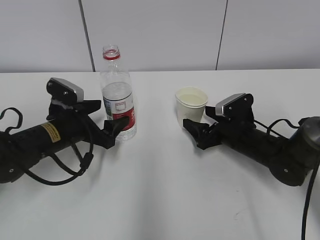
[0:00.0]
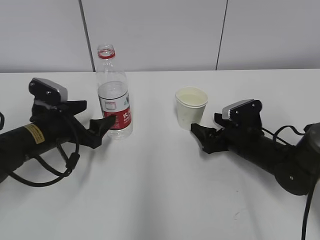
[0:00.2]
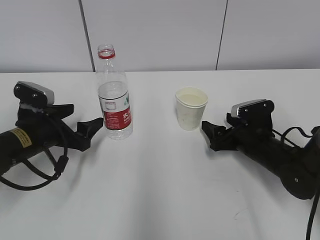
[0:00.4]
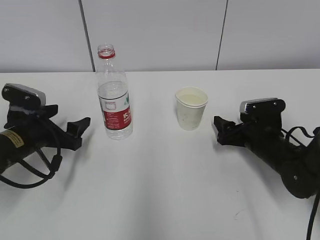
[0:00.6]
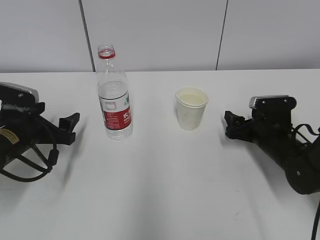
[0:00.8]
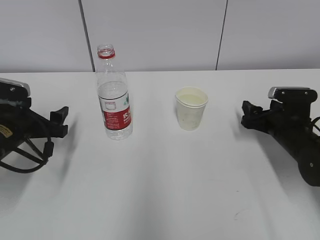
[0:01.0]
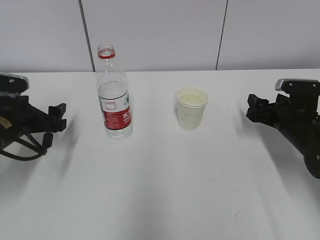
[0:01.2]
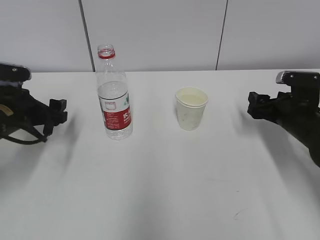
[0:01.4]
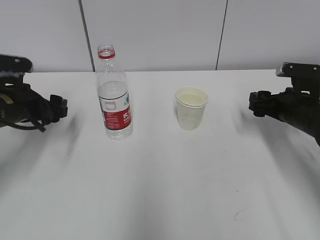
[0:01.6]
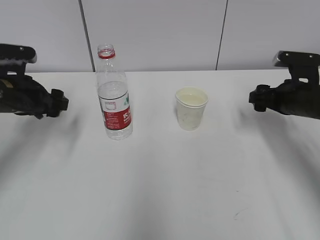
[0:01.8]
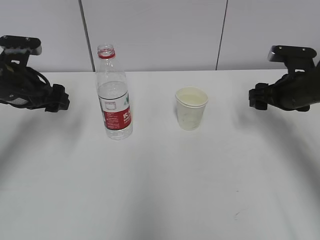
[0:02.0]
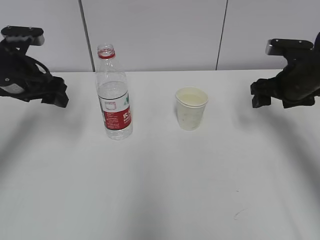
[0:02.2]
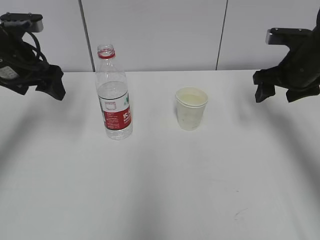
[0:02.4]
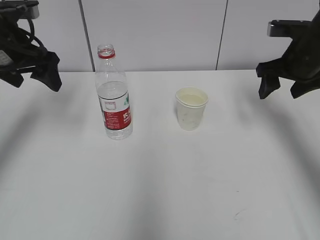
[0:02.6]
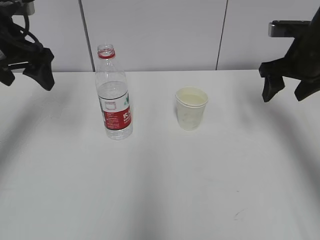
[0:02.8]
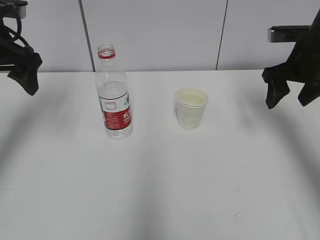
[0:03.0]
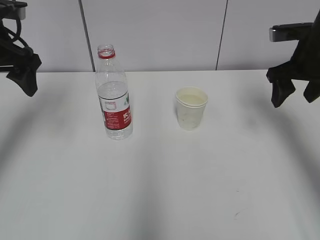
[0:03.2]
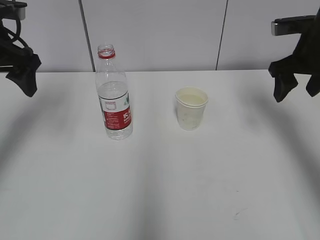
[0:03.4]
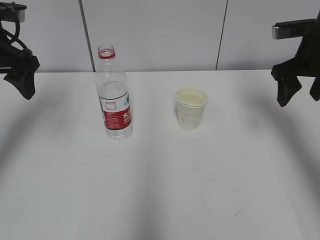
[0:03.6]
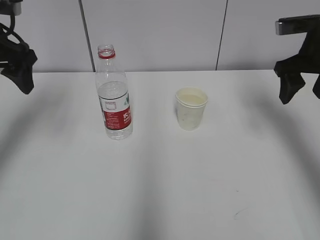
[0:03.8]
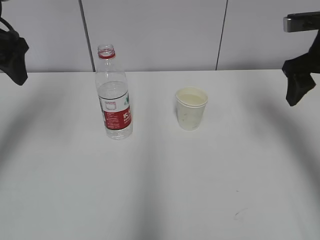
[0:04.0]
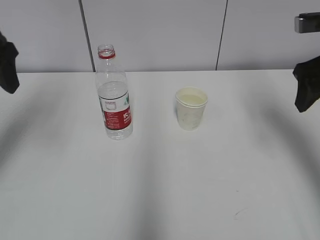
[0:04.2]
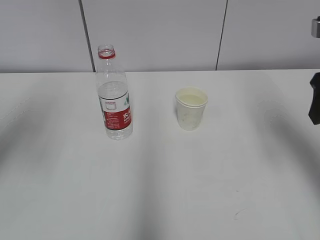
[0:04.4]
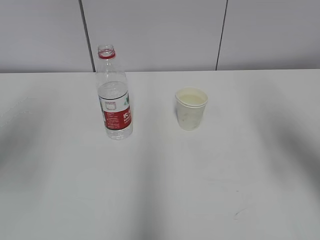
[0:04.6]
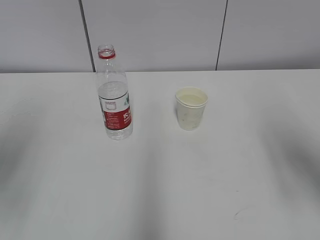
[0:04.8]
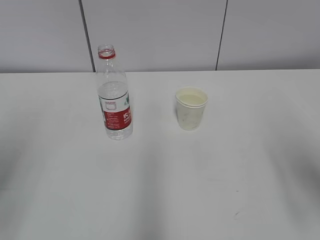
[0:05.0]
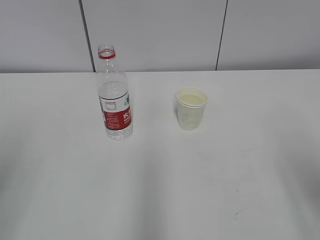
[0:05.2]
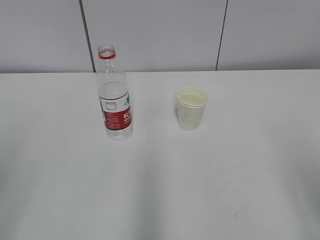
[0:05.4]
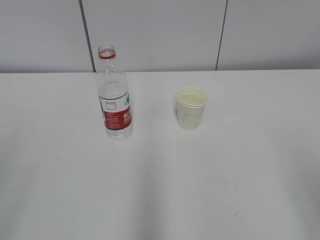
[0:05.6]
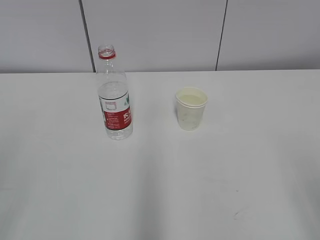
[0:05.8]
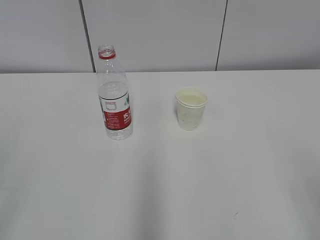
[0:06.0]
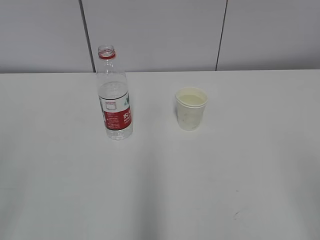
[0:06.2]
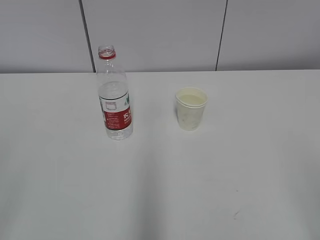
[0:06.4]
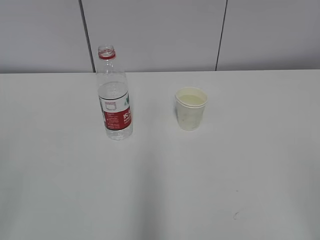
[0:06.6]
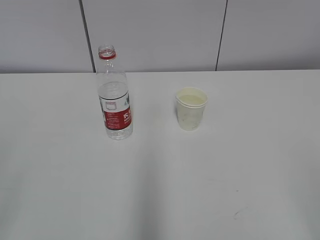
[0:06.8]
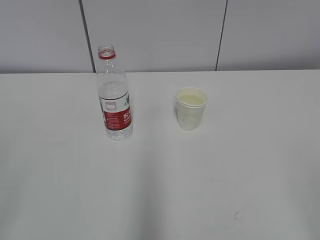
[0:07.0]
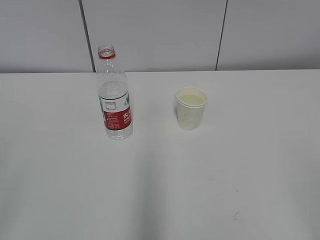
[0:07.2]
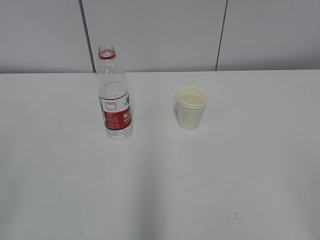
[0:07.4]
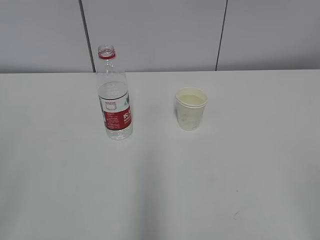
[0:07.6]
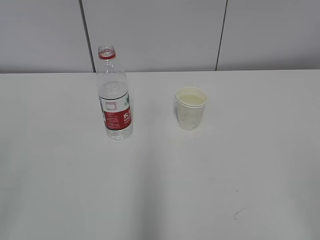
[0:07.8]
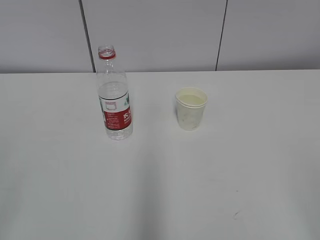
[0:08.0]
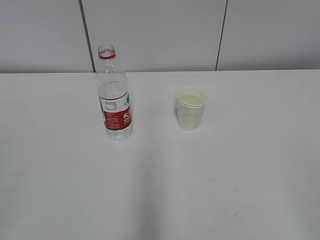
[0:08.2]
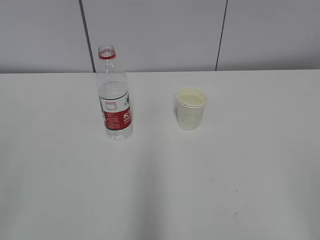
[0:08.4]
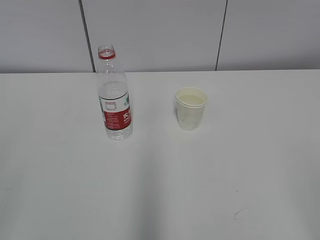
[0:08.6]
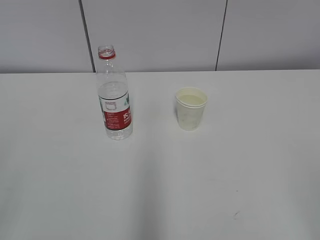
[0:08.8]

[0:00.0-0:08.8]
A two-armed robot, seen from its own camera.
0:00.0 to 0:01.4: The left gripper moves to the left, some 10 cm. Meanwhile the right gripper is displaced to the right and upward by about 10 cm.
0:01.4 to 0:03.0: The two grippers go approximately 15 cm upward.
0:03.0 to 0:04.4: The right gripper moves backward and upward, about 10 cm. Meanwhile the left gripper moves backward, about 10 cm.
0:04.4 to 0:05.8: Both grippers move backward, roughly 20 cm.
0:07.4 to 0:08.8: Both grippers stay put.
